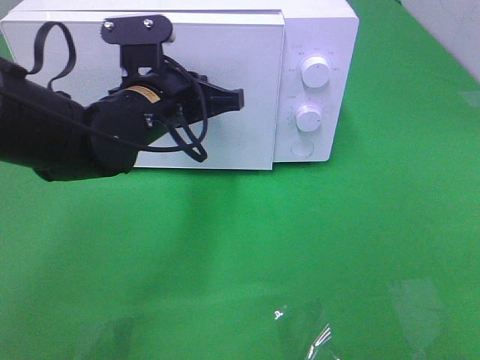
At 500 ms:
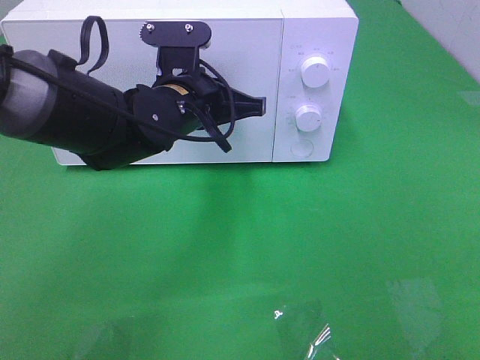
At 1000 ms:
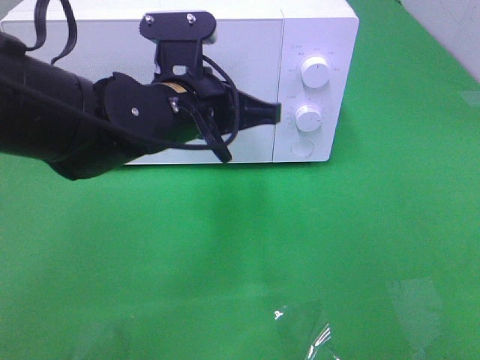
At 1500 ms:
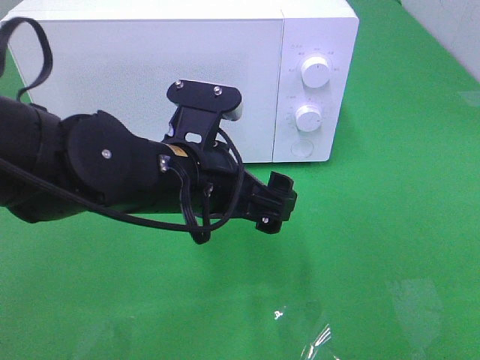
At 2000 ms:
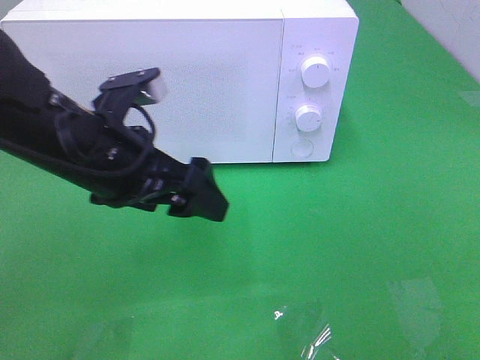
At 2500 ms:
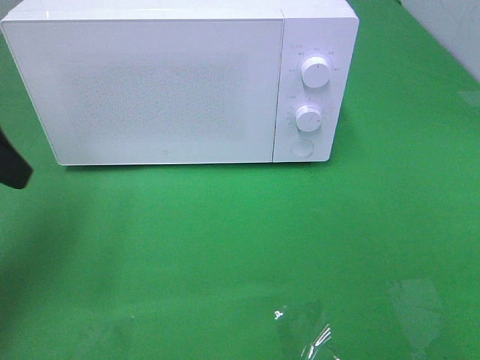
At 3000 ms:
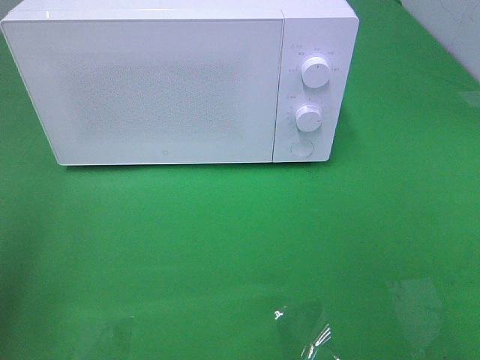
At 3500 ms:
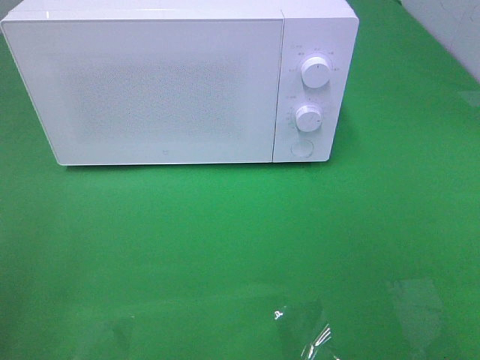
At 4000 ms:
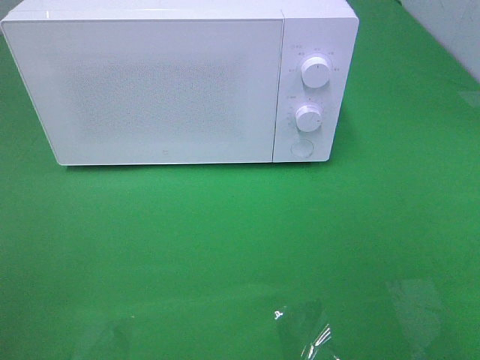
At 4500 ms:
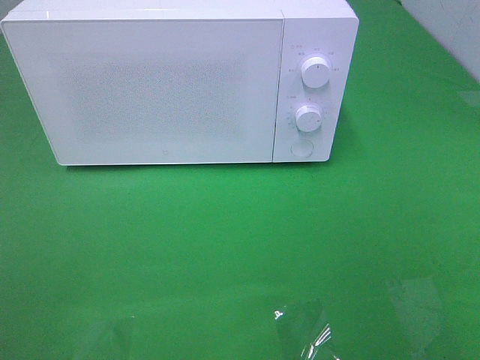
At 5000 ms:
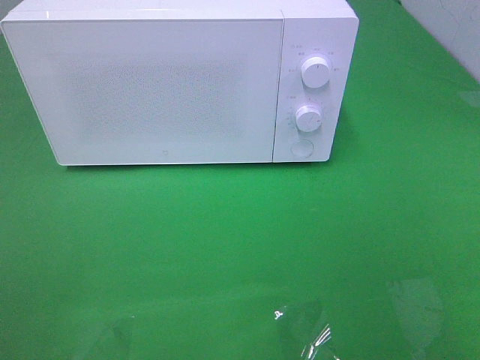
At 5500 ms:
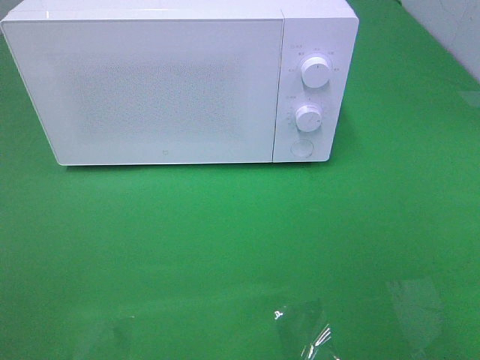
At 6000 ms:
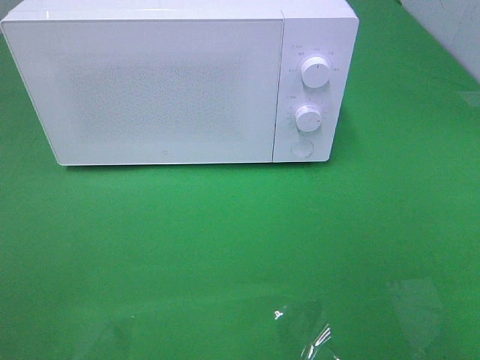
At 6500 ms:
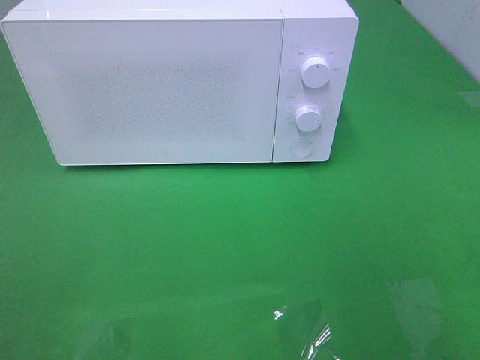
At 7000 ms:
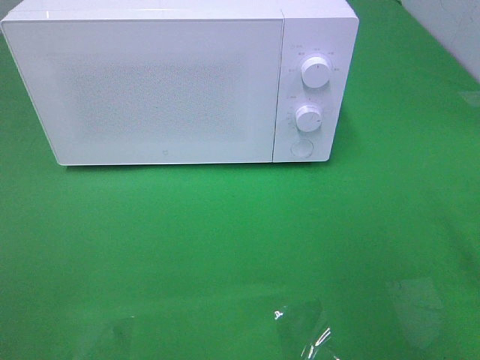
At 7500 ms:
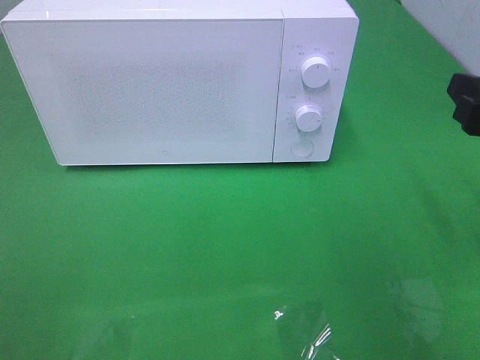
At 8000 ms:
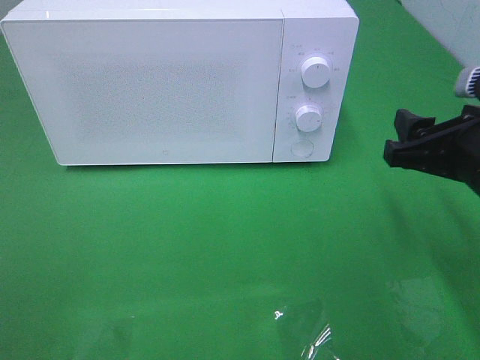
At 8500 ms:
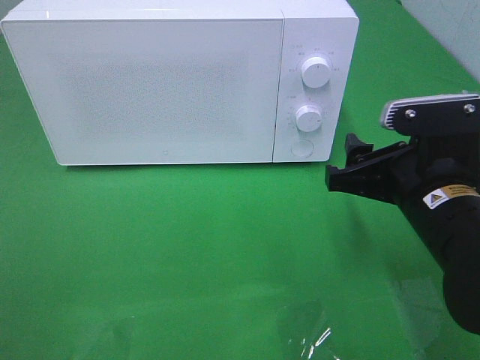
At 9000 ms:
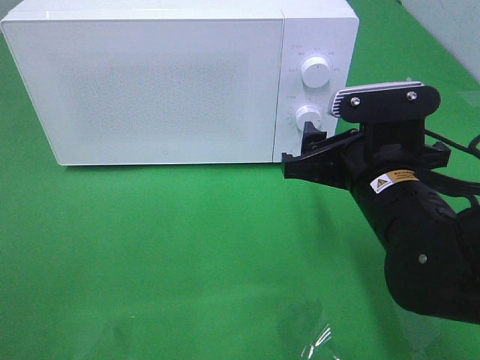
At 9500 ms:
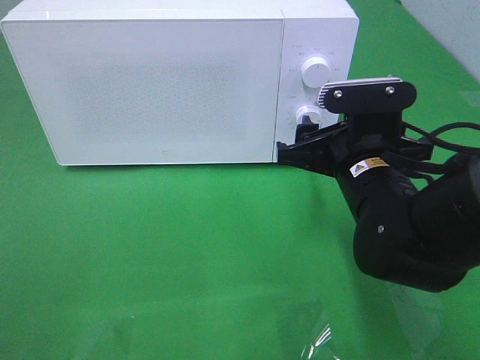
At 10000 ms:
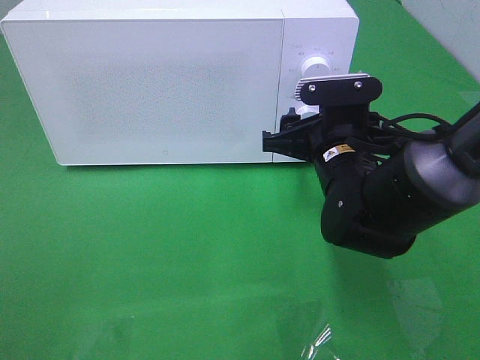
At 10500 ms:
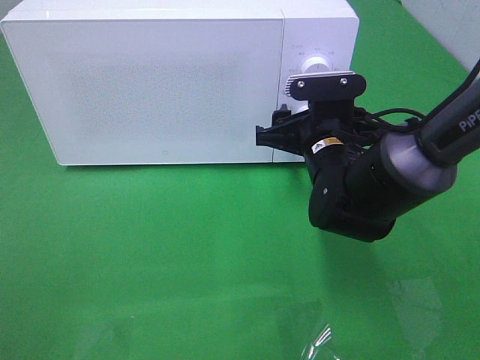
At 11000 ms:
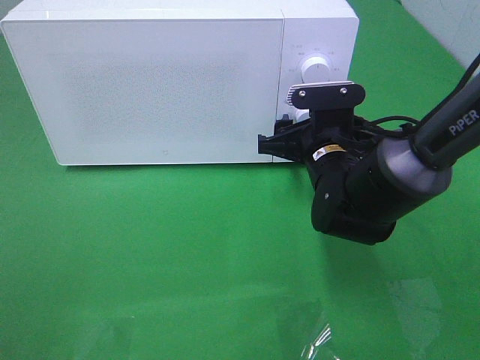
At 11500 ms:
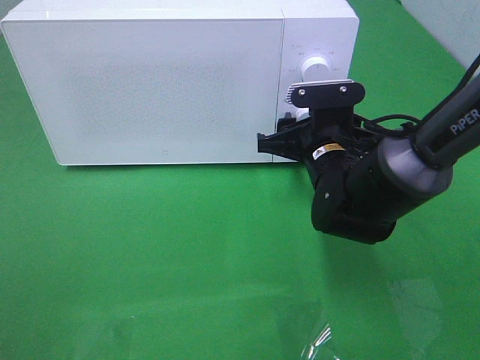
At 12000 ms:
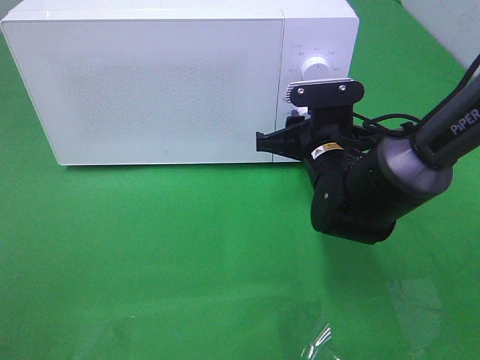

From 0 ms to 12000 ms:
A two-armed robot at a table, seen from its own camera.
Task of the whole recording: Heat the burger.
From 0 ms to 2000 ms: The left gripper is displaced backward and to the left by roughly 10 cm, and opens up.
From 2000 ms to 4000 ms: The left gripper shifts about 30 cm backward and to the left.
From 6000 ms to 8000 ms: The right gripper shifts approximately 25 cm forward and downward.
From 8000 ms to 10000 ms: The right gripper moves to the left, forward and downward, roughly 15 cm.
From 10000 ms to 12000 ms: The right gripper closes.

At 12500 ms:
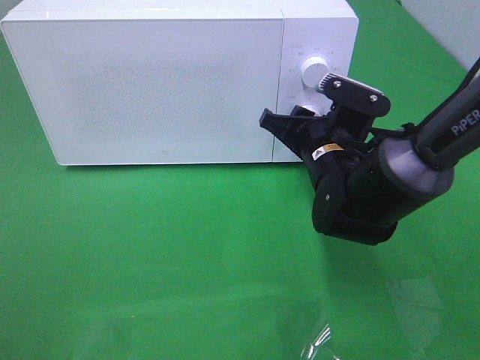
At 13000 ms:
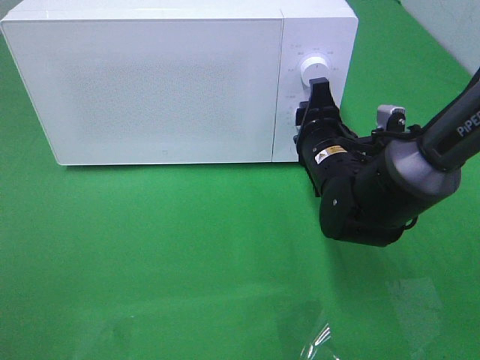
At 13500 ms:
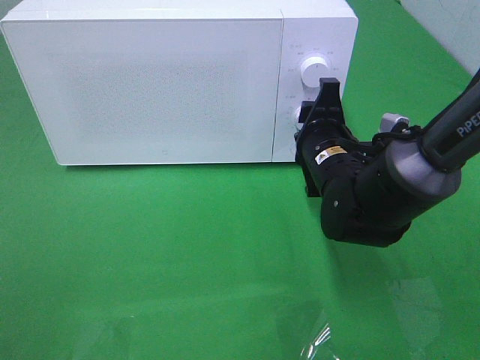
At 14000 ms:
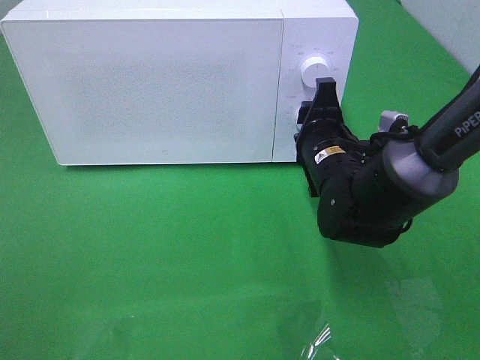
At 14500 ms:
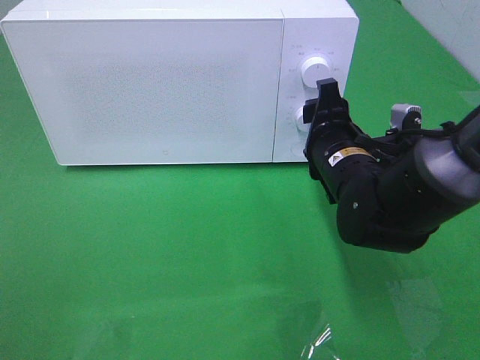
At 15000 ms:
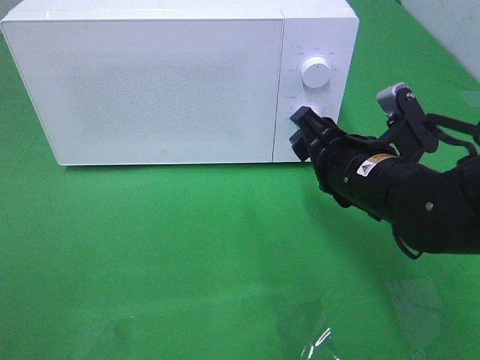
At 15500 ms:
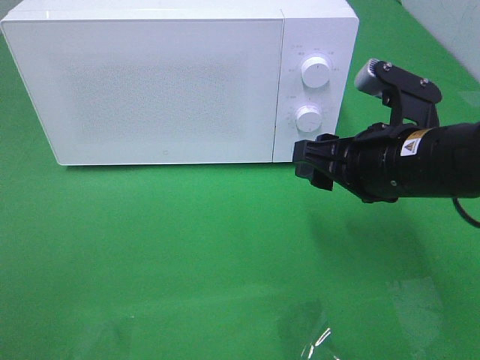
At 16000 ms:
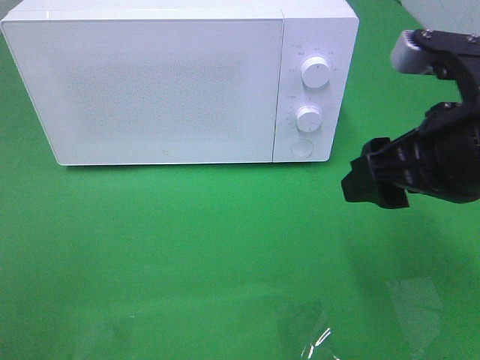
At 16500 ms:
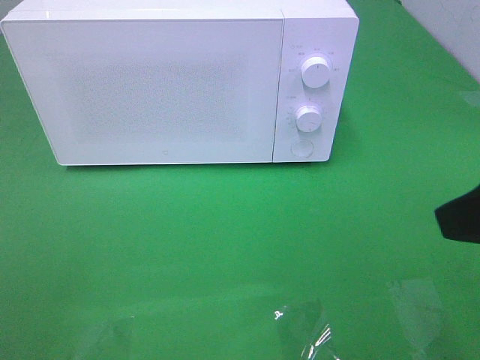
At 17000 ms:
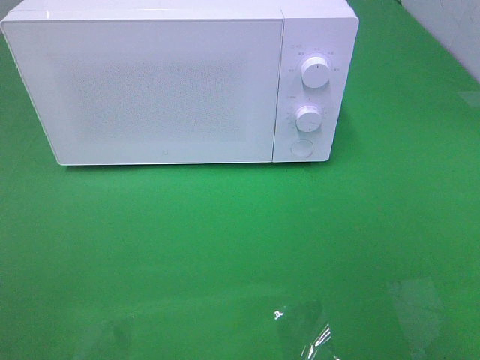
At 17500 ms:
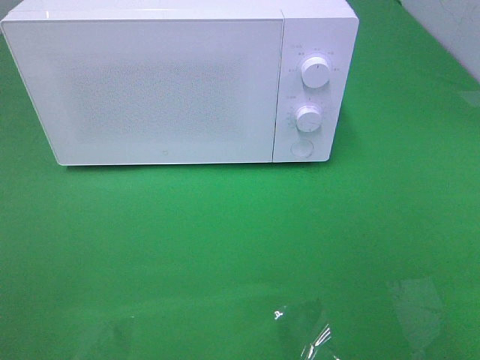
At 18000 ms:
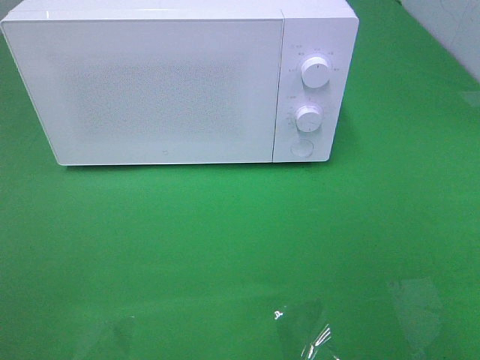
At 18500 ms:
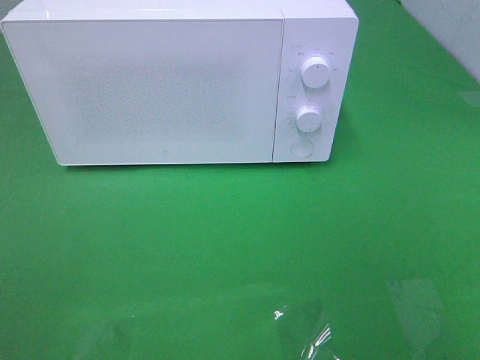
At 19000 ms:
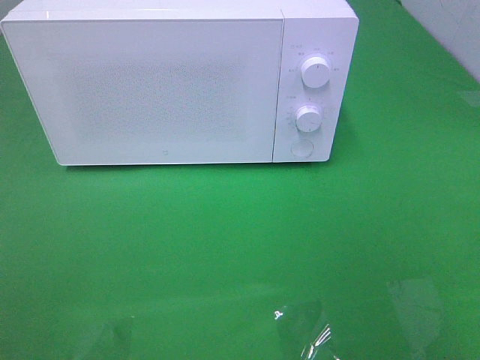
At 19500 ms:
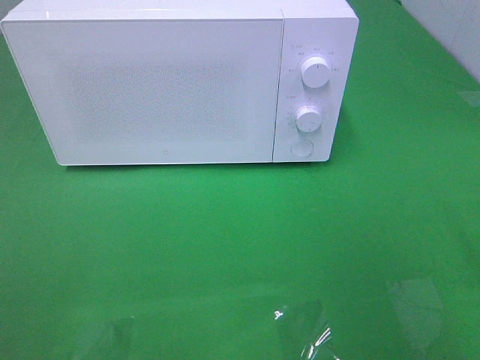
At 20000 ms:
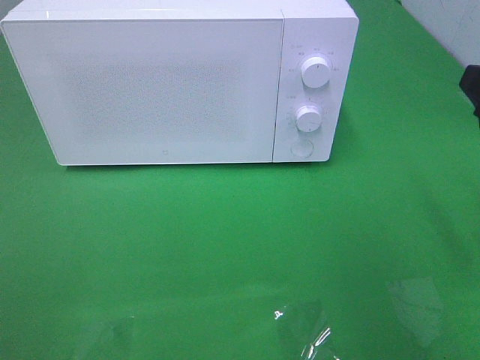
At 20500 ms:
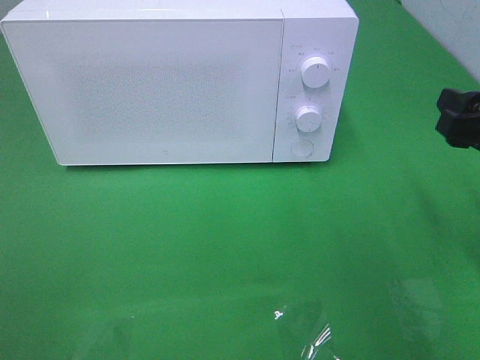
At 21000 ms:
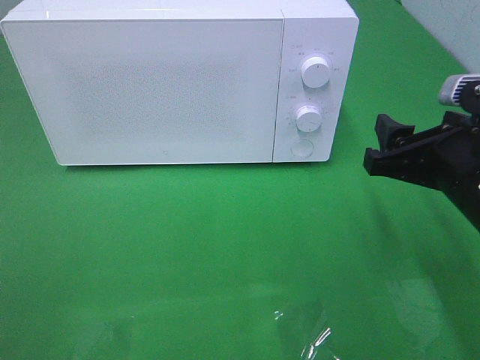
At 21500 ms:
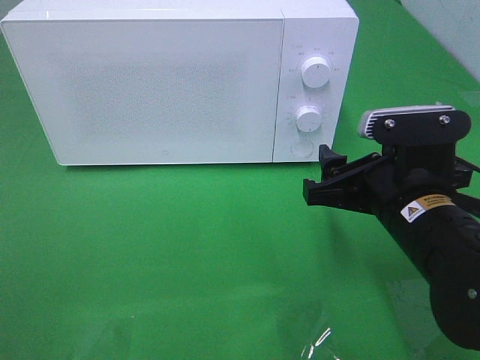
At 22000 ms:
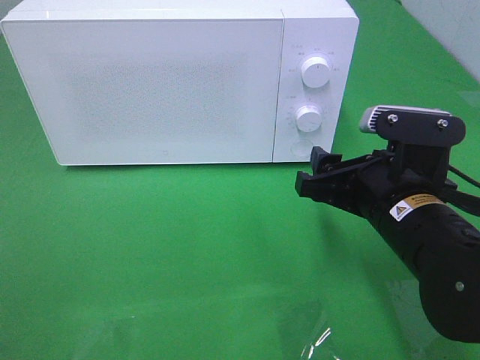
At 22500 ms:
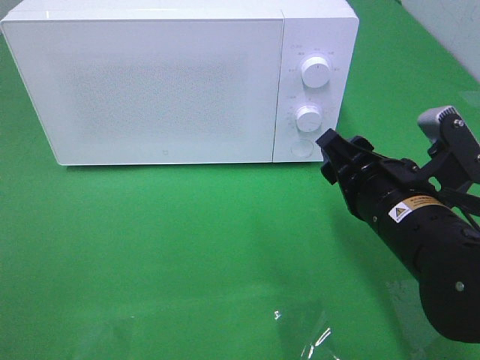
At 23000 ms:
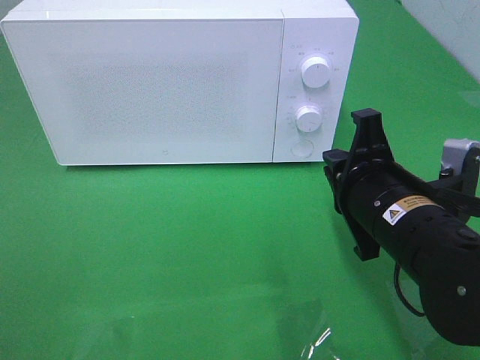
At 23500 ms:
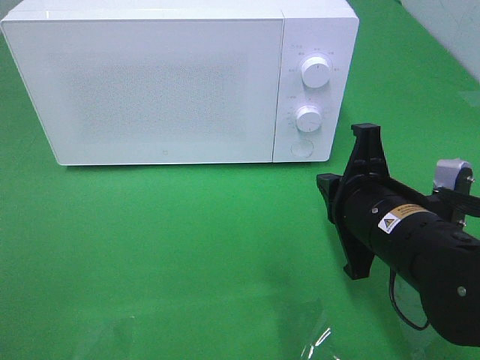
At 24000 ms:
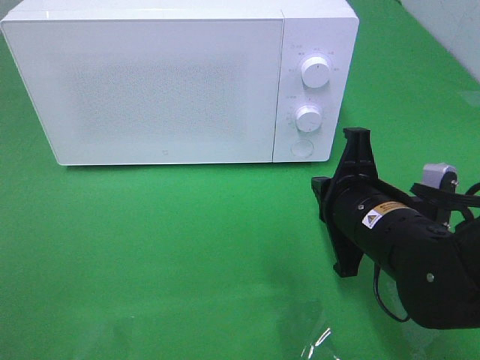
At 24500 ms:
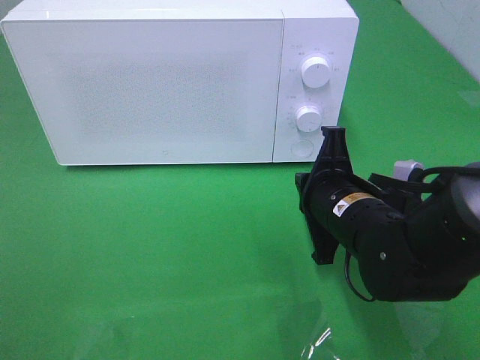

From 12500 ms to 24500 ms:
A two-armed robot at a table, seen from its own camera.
Task of the whole recording: Heat the burger.
Step, from 12500 ms to 14500 ms: Right hand: twist timer button.
From 14500 ms to 16500 ms: The right gripper is displaced backward, upward and to the right by approximately 30 cm.
From 16500 ms to 18500 ms: The right gripper moves backward and to the right, approximately 10 cm.
From 18500 ms to 20500 ms: The right gripper heads forward and downward, covering approximately 20 cm.
From 20500 ms to 22500 ms: The right gripper moves to the left and downward, about 15 cm.
From 22500 ms to 24500 ms: The right gripper shifts by some 5 cm, and closes up.

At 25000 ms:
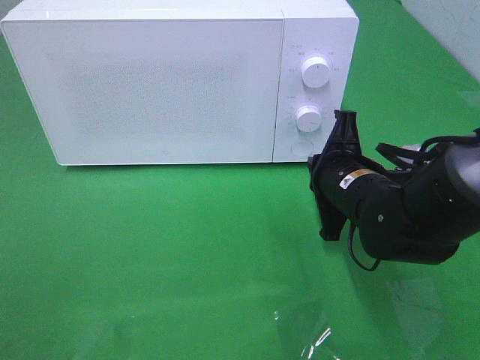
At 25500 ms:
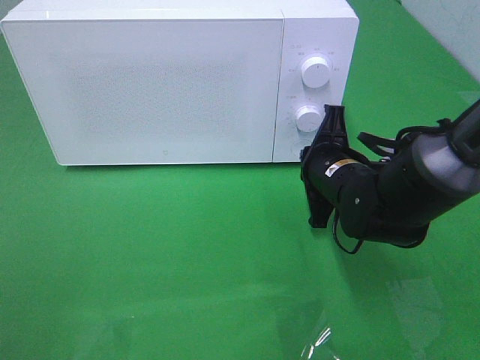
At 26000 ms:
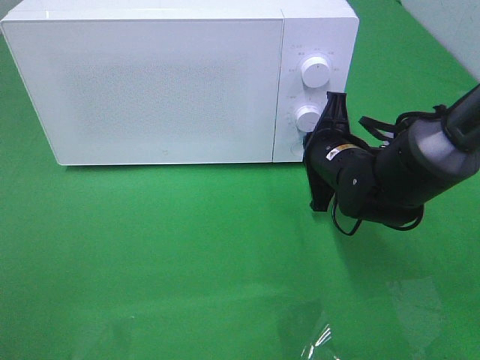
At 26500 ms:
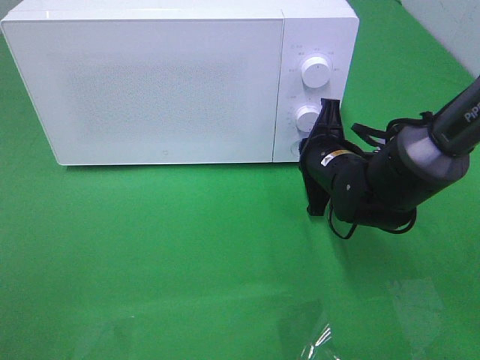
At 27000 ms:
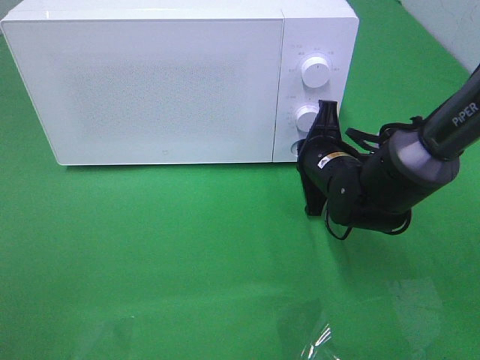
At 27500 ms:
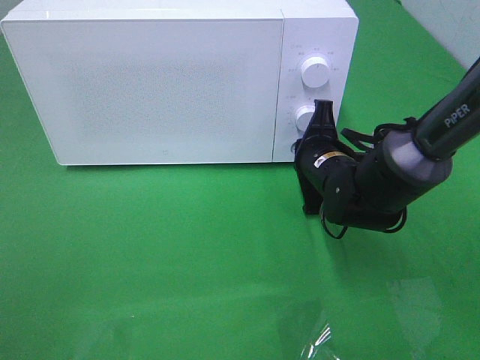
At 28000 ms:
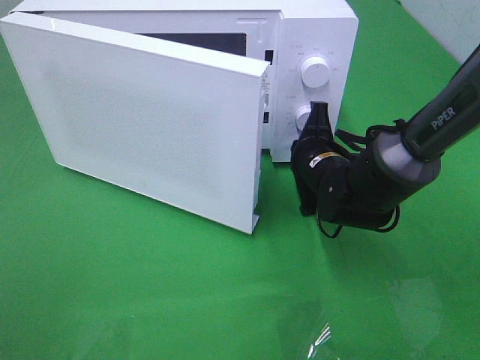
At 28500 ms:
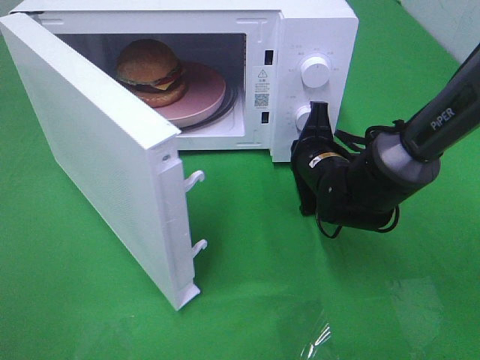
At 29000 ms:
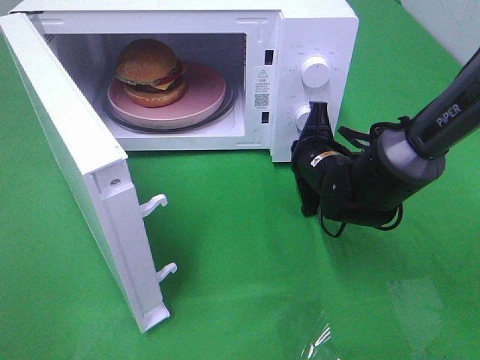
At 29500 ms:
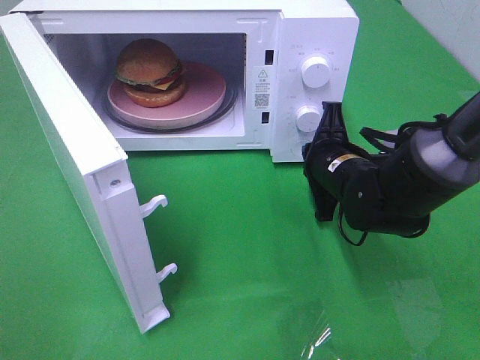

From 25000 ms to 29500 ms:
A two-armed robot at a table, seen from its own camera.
Task of the whole recording: Heat the burger.
From 25000 ms to 27000 ms: The right gripper moves forward, approximately 5 cm.
